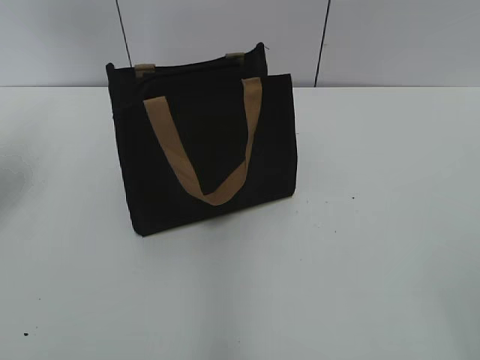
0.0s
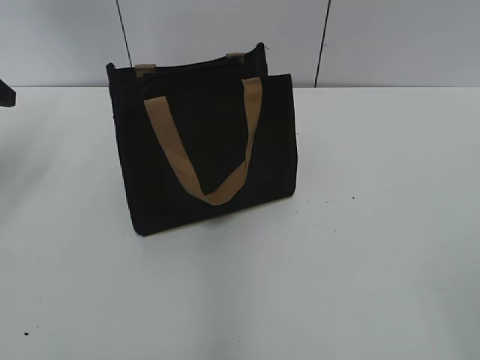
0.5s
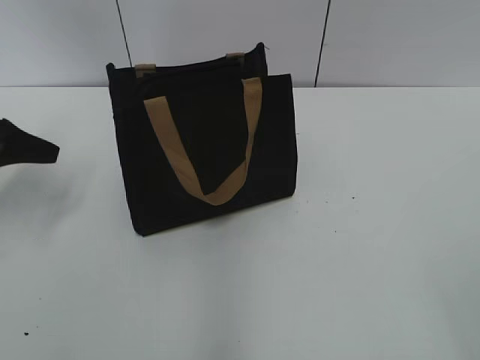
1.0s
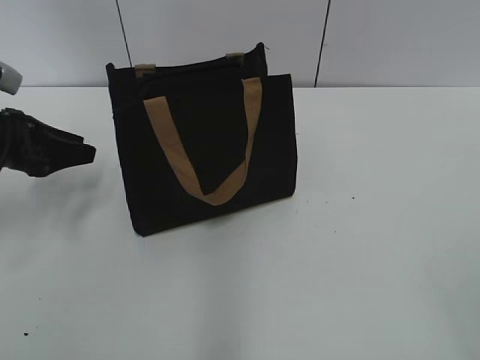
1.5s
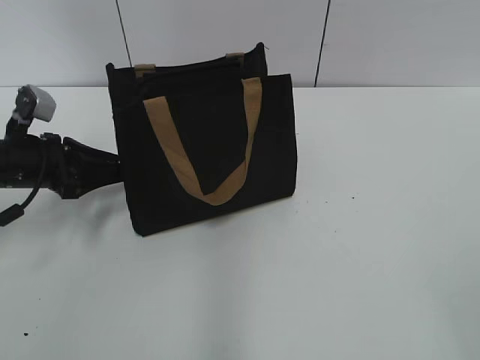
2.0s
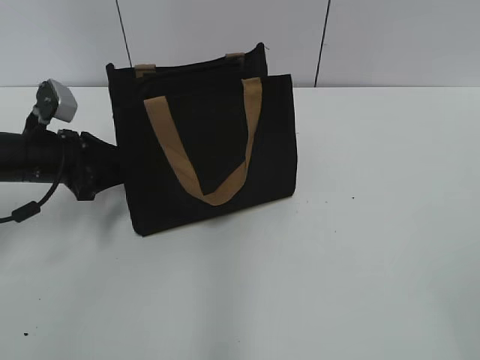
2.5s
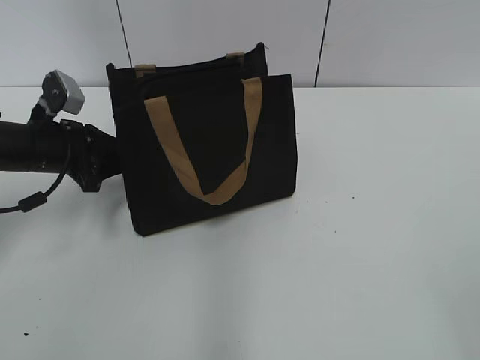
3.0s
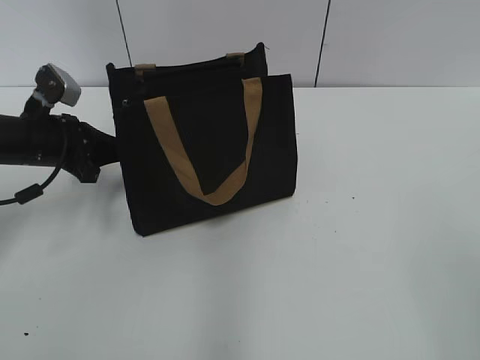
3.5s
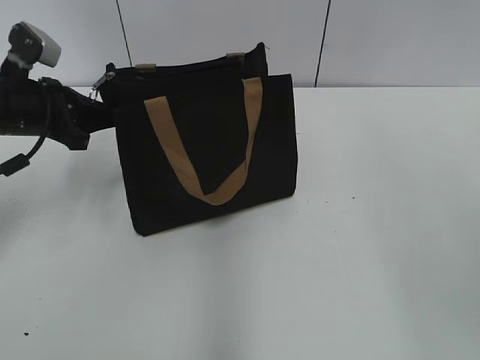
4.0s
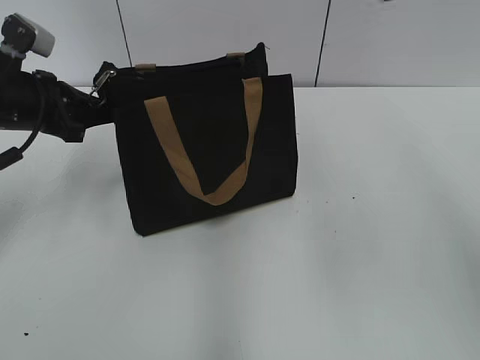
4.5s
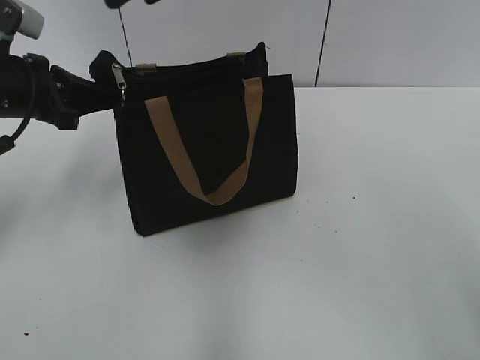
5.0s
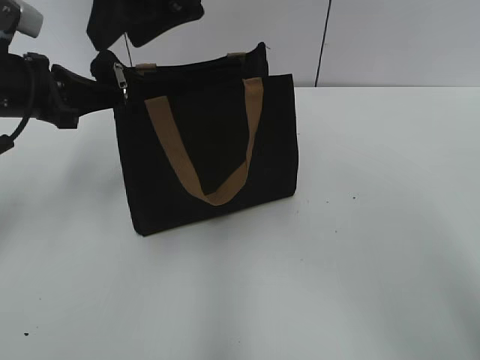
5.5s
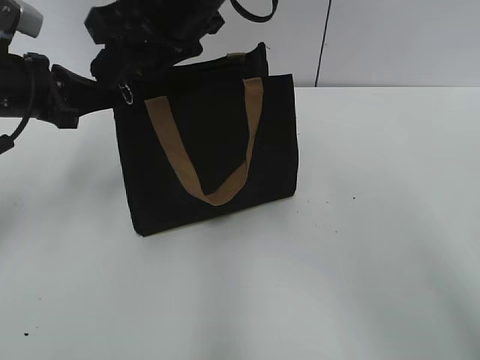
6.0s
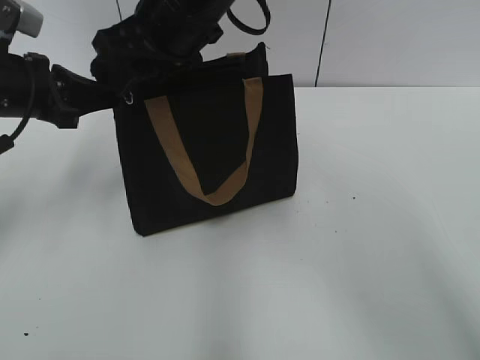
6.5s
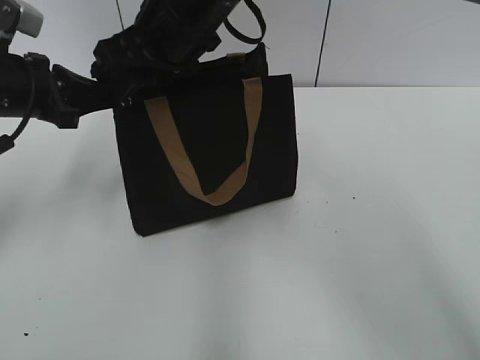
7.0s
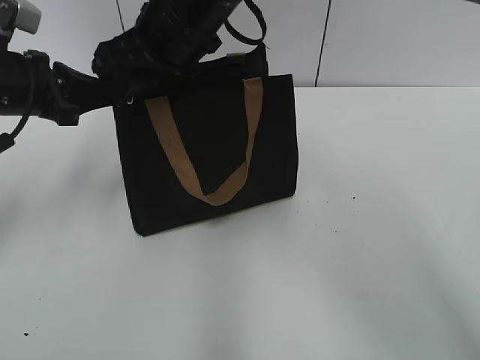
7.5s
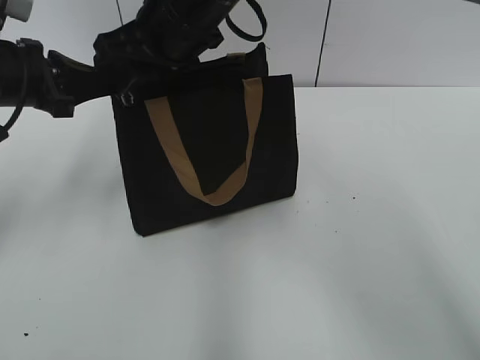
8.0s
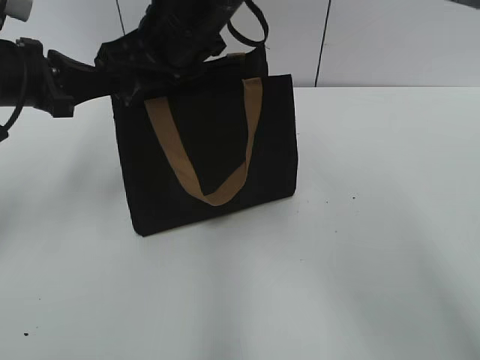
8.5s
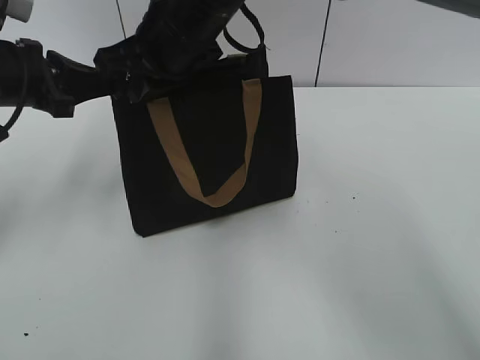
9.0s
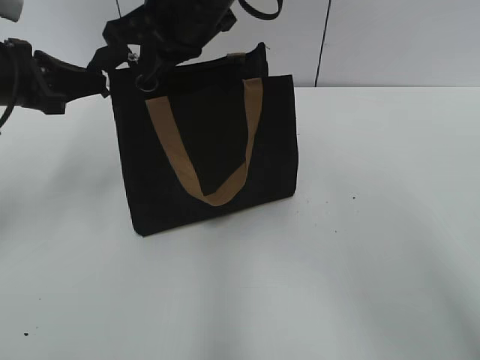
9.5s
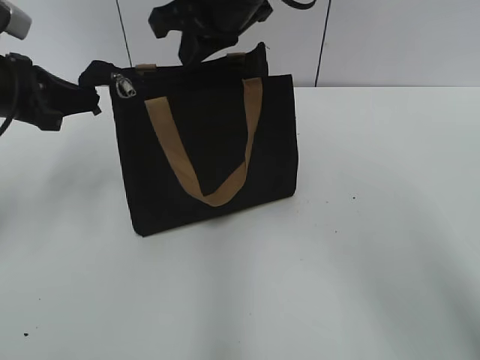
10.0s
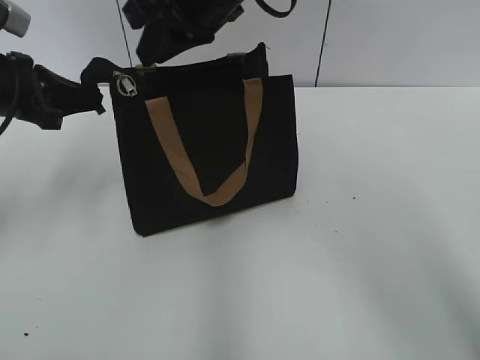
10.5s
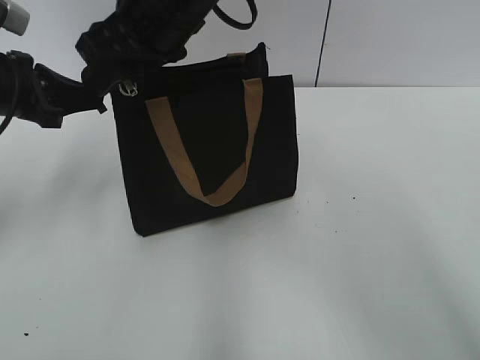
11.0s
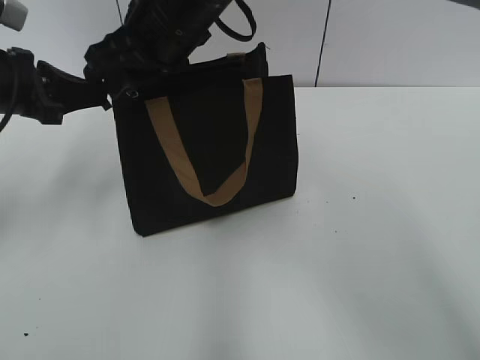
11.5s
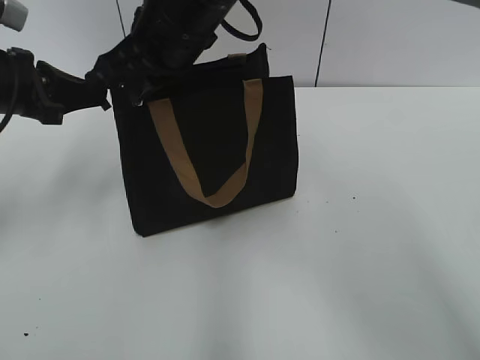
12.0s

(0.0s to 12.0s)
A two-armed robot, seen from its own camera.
0.0s - 2.0s: The left gripper heads downward and to the right, covering some 15 cm.
2.0s - 4.0s: The left gripper heads upward, covering about 5 cm, and closes its fingers.
4.0s - 6.0s: The right gripper goes some 35 cm to the left and forward.
6.0s - 8.0s: The grippers stay close to where they were, moving slightly.
8.0s - 10.0s: The right gripper moves roughly 5 cm, and closes its fingers.
10.0s - 12.0s: The right gripper changes place by some 5 cm, and opens and closes again.

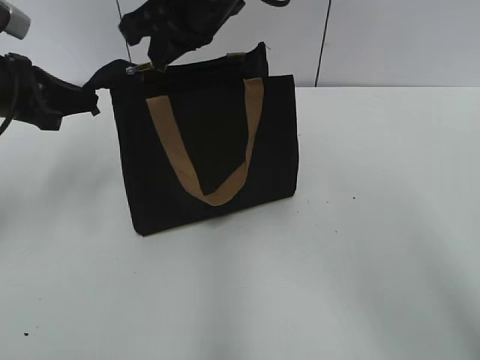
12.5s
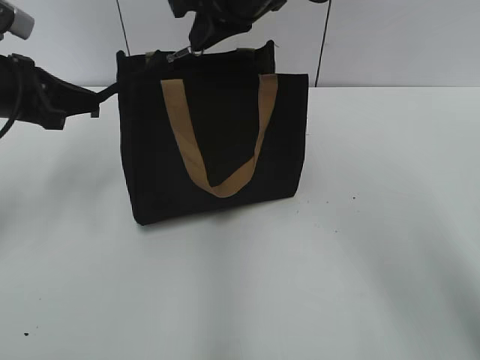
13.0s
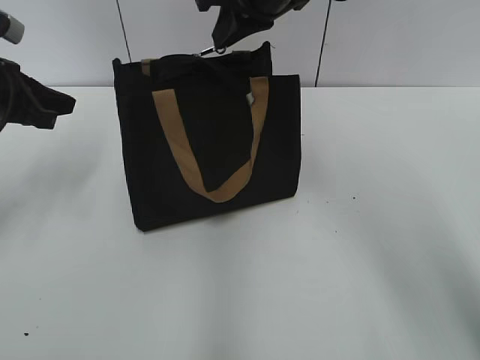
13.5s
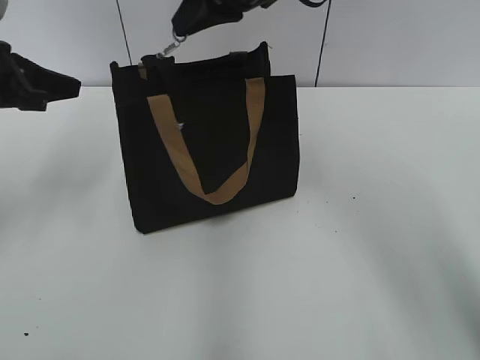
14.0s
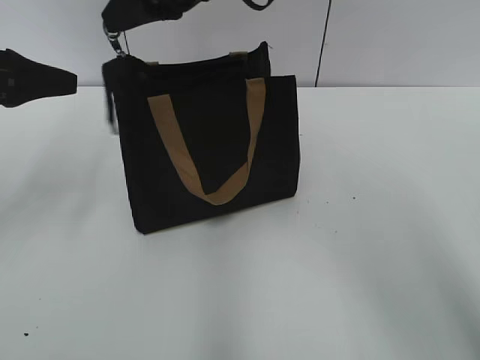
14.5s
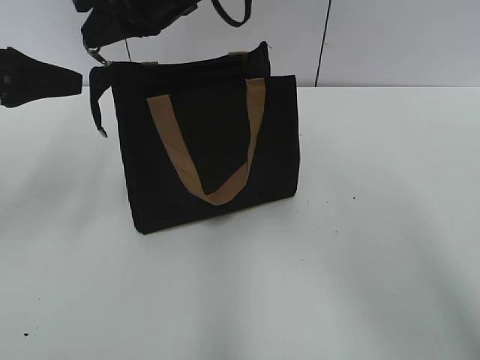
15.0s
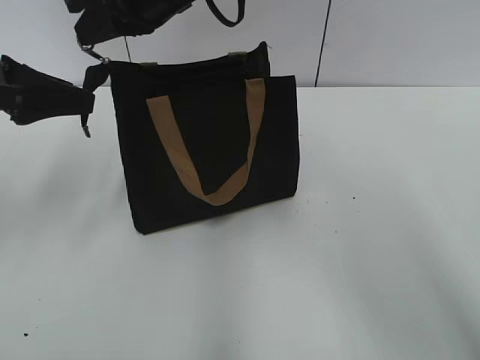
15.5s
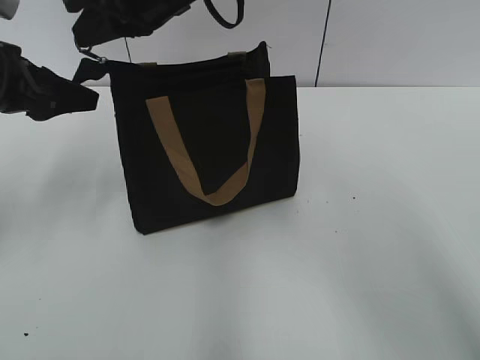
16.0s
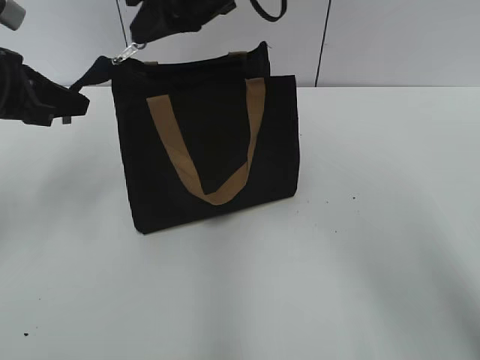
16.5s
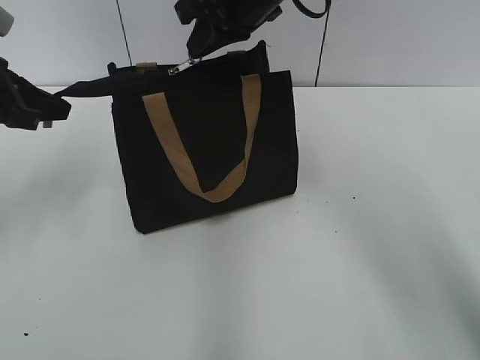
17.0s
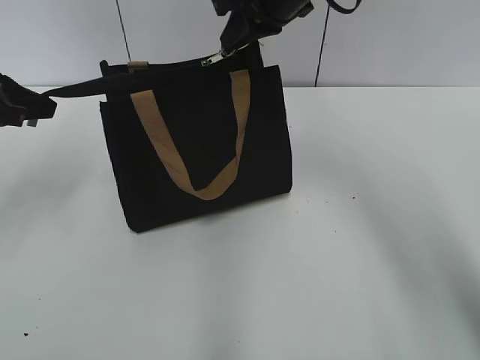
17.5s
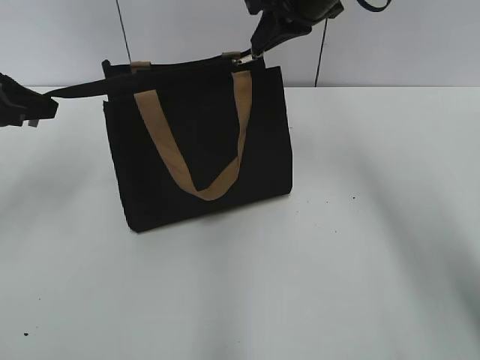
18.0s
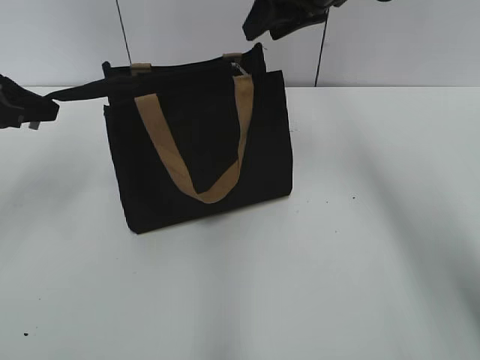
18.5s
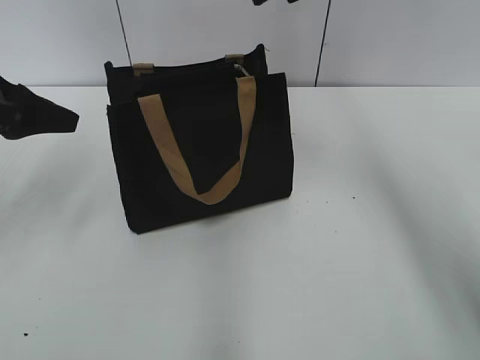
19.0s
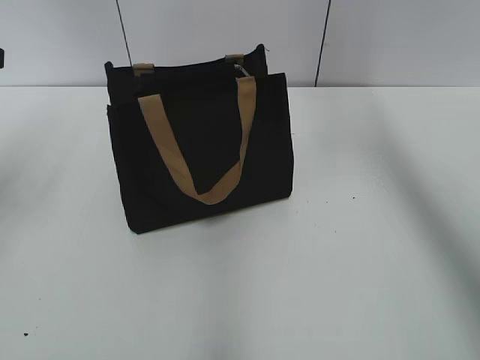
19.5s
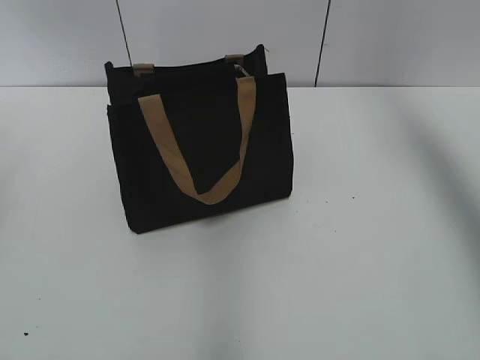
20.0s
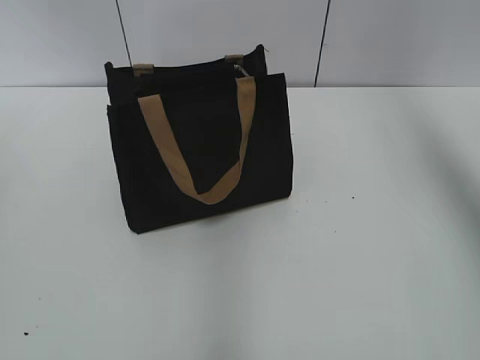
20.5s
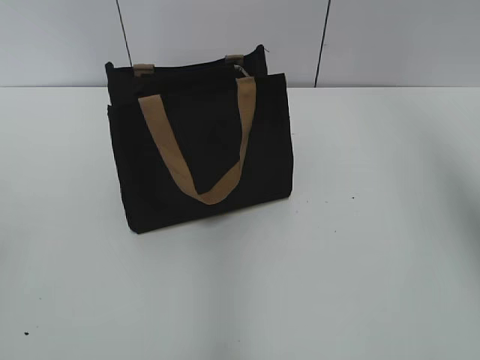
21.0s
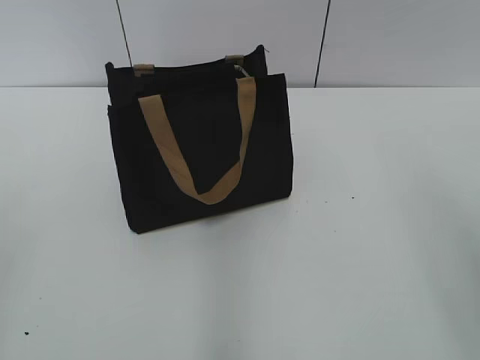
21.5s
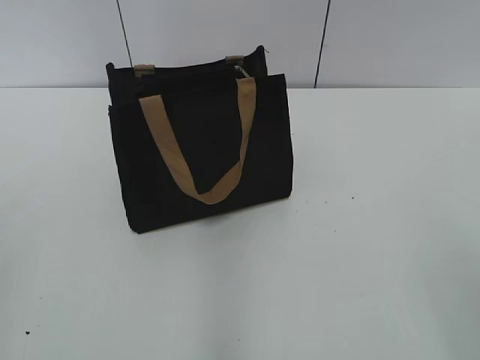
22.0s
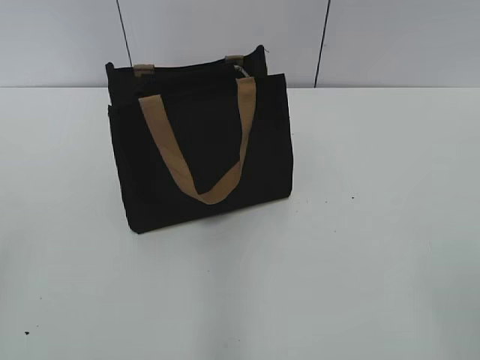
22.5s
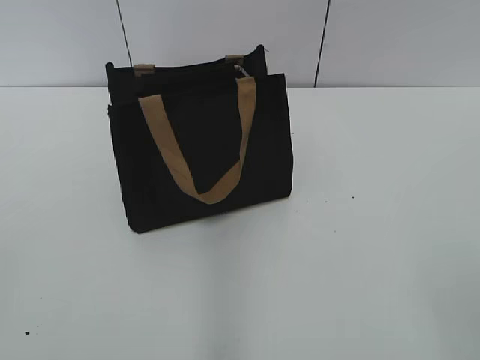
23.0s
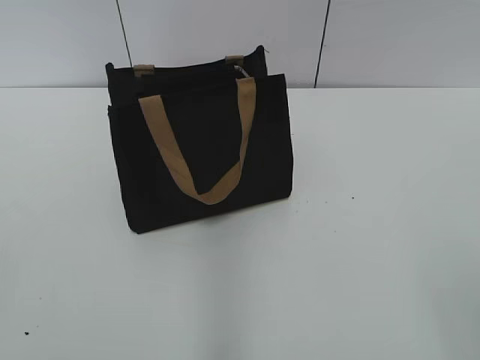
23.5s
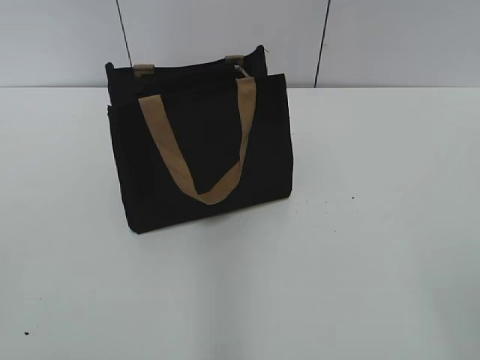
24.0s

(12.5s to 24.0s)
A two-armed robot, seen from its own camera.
Step, 12.5s - 18.0s: Zip up the bag with your right hand.
12.5s - 14.5s: The left gripper opens.
14.5s - 16.5s: The left gripper closes.
16.5s - 18.5s: The right gripper heads to the right, covering roughly 10 cm, and opens.
18.5s - 20.0s: The left gripper shifts some 10 cm to the left, and opens, while the right gripper goes about 20 cm to the right and upward.
20.0s - 22.0s: The left gripper is displaced backward by about 20 cm. Meanwhile the right gripper moves backward, about 35 cm.
